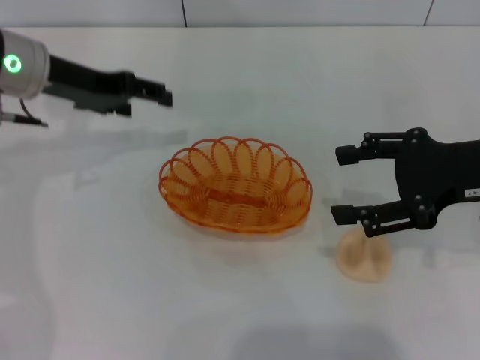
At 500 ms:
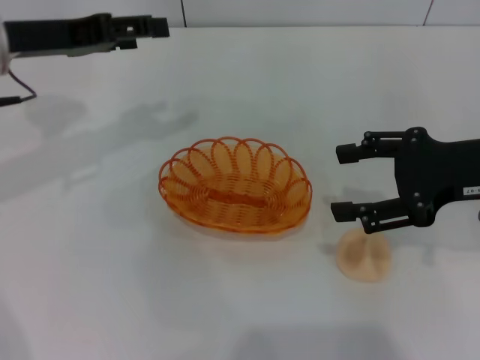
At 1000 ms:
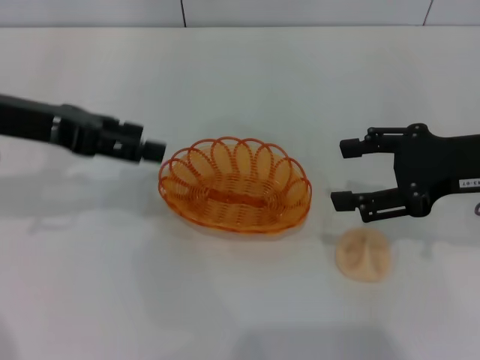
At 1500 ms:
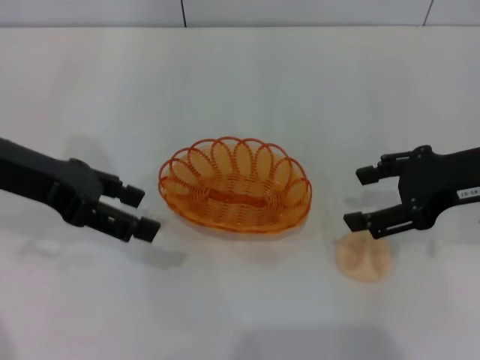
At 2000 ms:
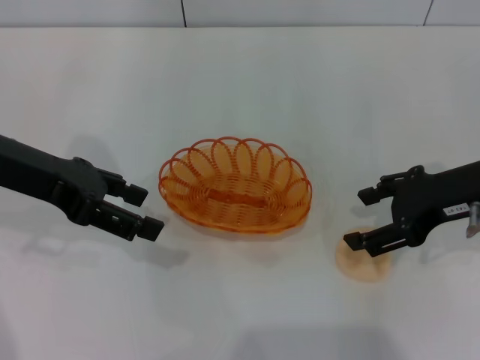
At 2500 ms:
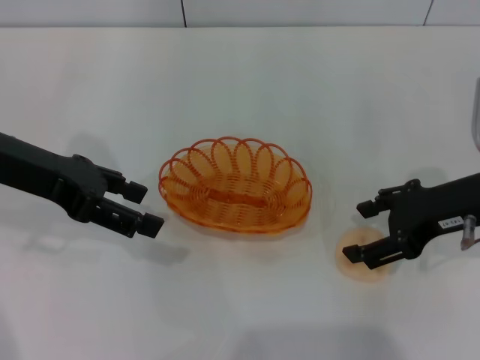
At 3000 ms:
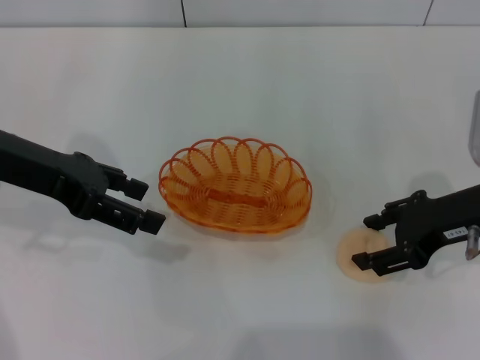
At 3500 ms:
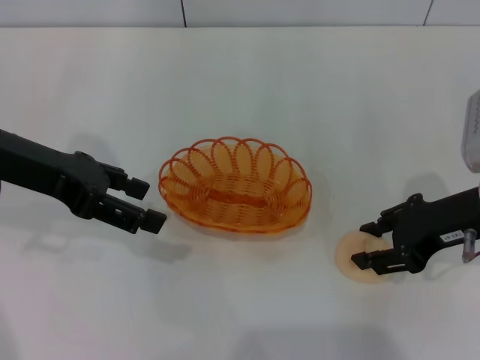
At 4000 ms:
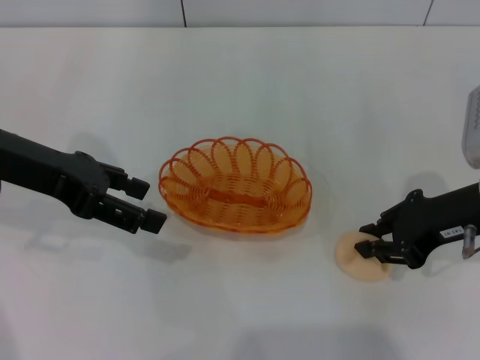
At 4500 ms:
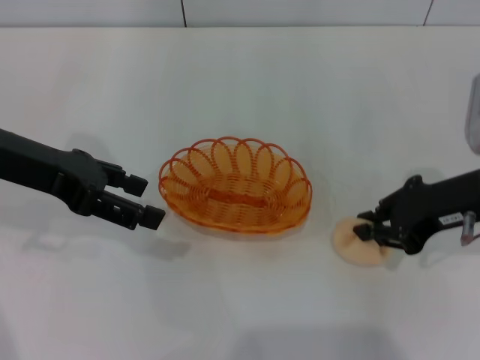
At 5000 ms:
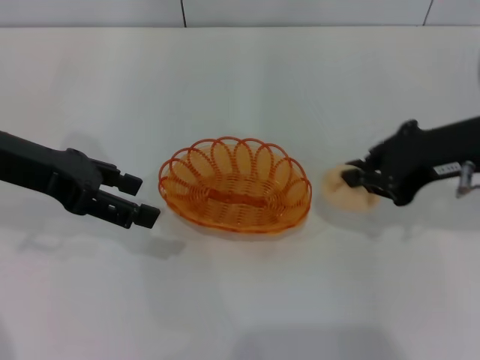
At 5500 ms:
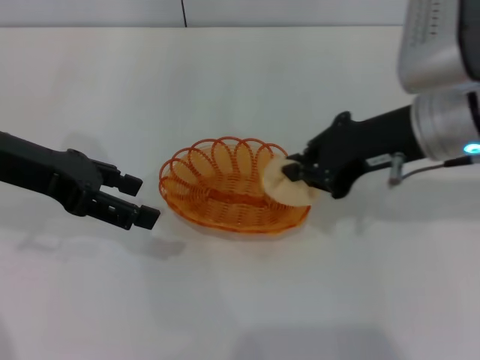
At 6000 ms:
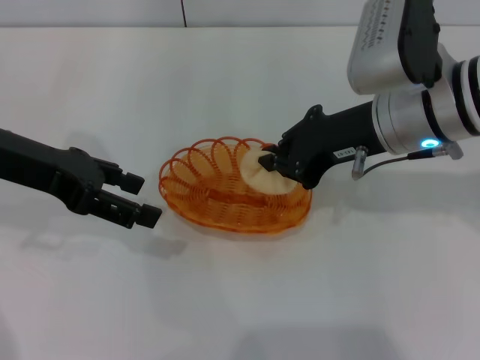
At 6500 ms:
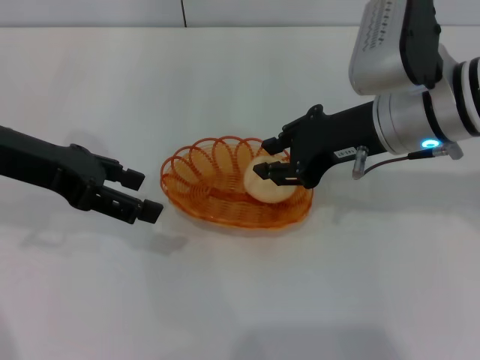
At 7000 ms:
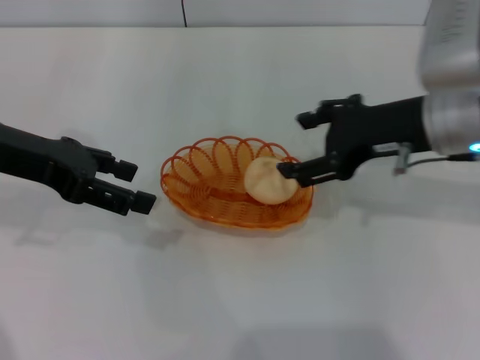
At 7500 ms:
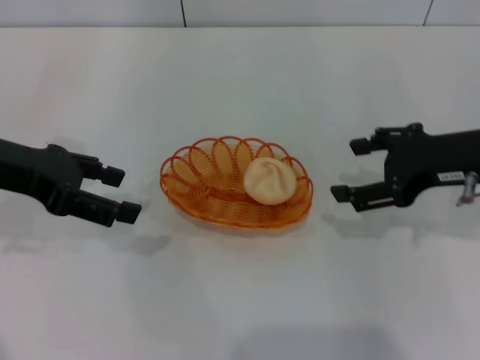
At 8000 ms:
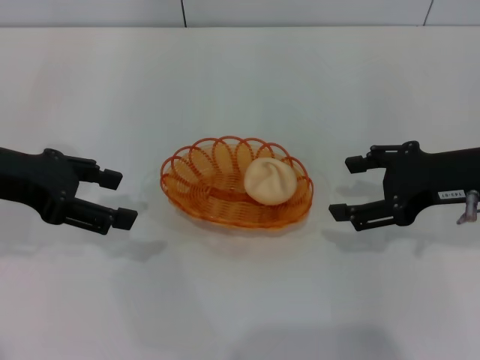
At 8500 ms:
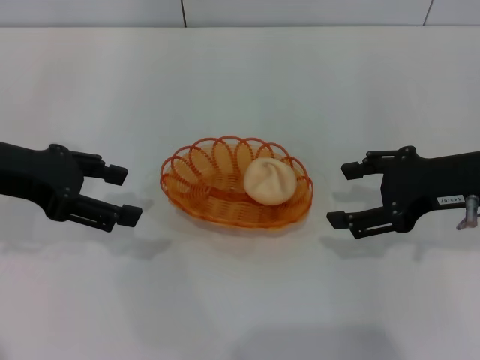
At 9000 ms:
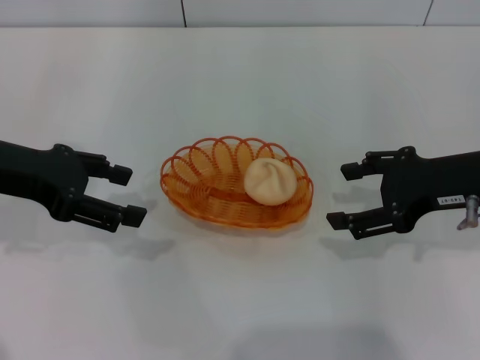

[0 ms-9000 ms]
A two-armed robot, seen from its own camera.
Step, 0 ms to 5000 ms: Pick up the egg yolk pastry with the right gripper.
Step, 5500 ms to 7500 ms: Place the egg yolk pastry into the basket with the right gripper.
0 ms to 2000 ms: The left gripper moves backward, some 10 cm.
2000 ms to 4500 ms: The right gripper closes up.
4500 ms to 7000 ms: The right gripper moves to the left, approximately 5 cm, and opens up.
7000 ms to 9000 ms: The right gripper shifts about 5 cm to the right.

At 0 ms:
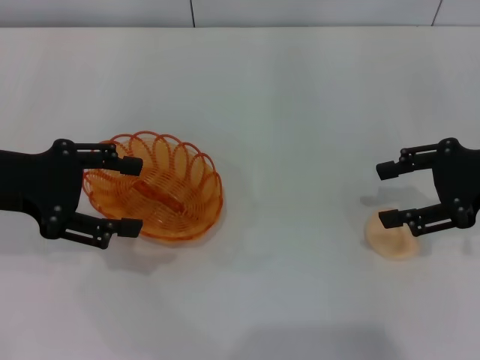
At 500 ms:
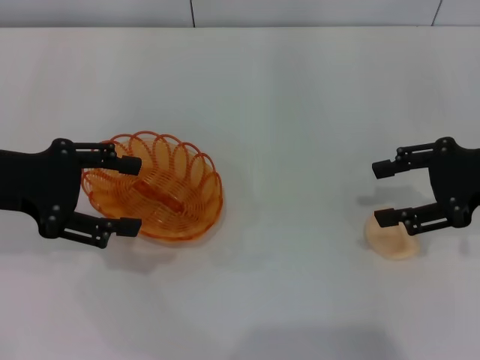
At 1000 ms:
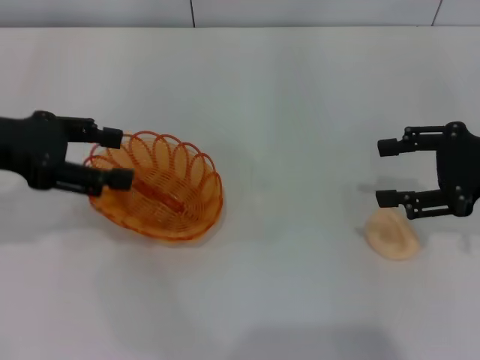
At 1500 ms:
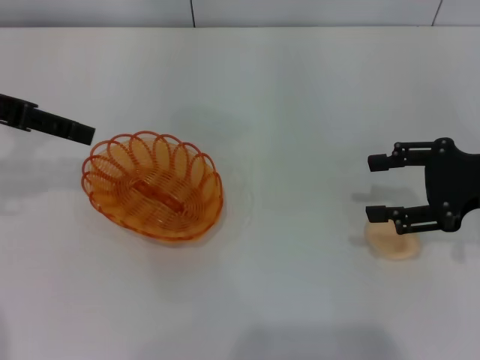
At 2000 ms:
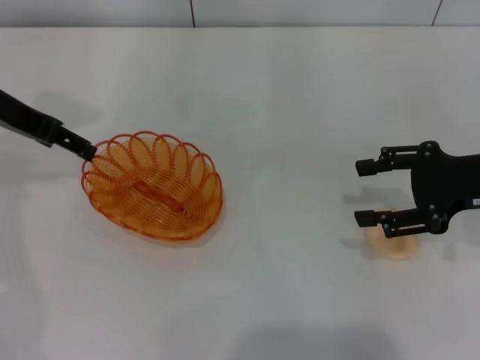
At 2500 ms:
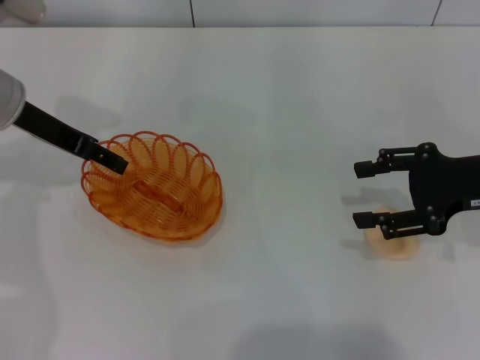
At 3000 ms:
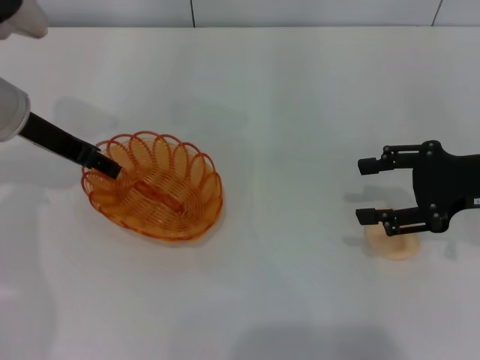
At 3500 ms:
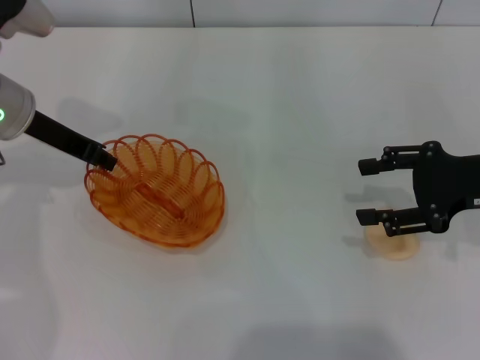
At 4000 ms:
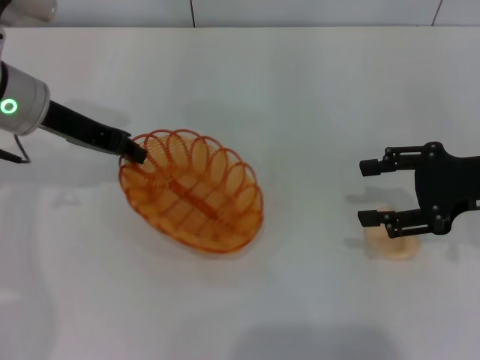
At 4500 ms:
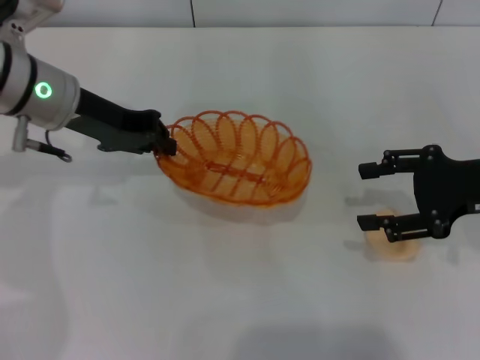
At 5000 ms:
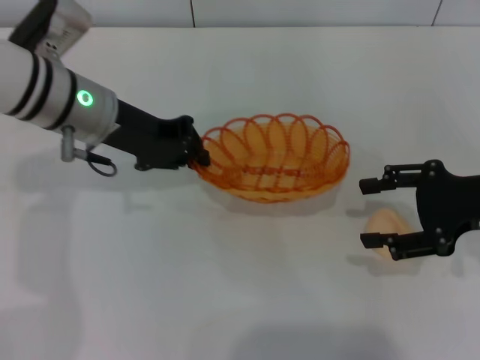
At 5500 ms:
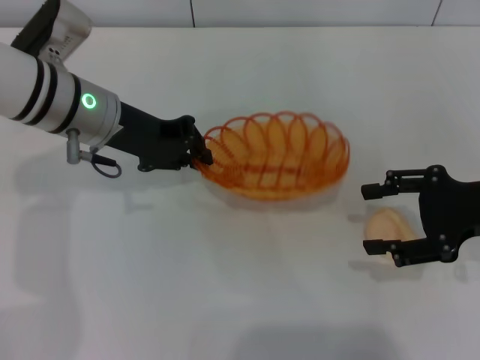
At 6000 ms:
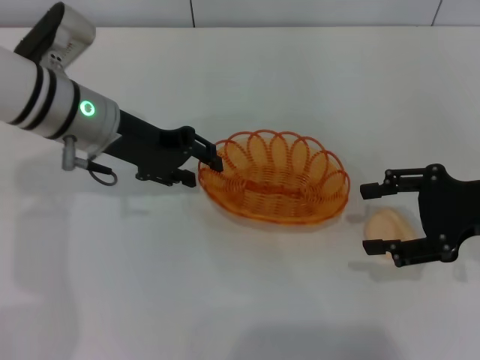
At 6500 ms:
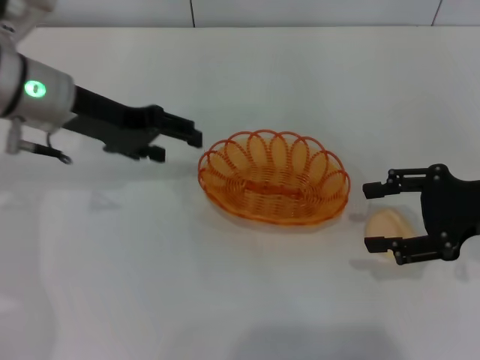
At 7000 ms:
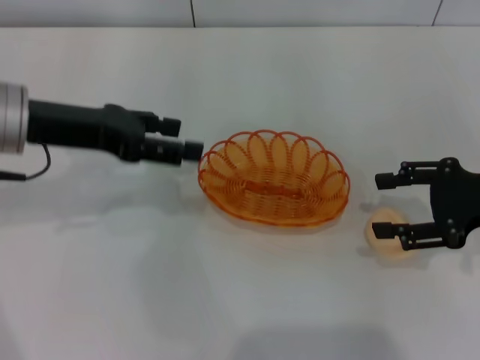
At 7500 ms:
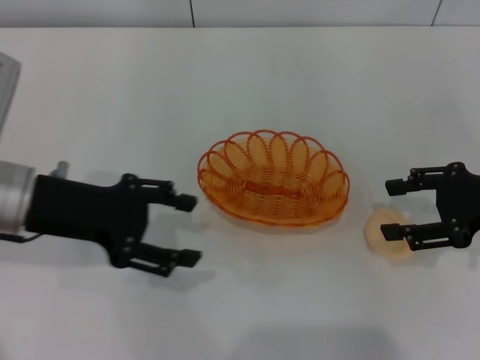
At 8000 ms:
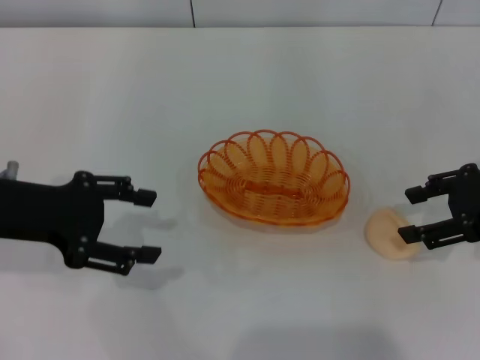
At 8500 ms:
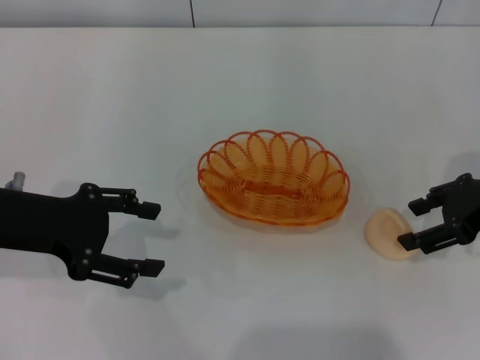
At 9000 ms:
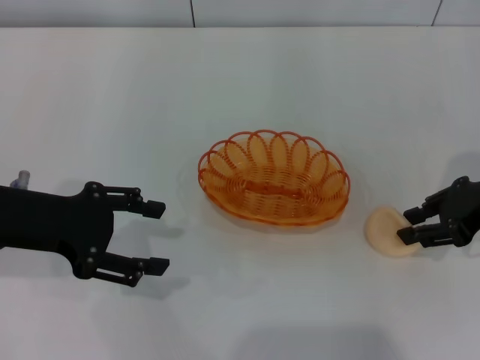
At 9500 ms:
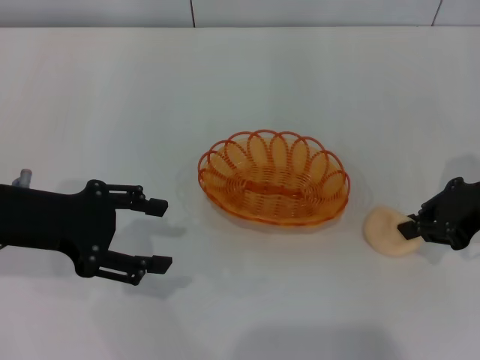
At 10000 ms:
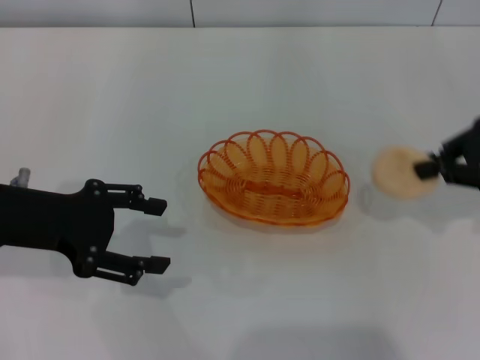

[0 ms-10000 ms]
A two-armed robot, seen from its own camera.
Step, 0 ms to 5000 ms: Pick up the basket with the left gripper.
Step, 5500 ms to 7000 ms: Place the basket in the center of view with the left gripper.
Step, 7500 ms to 9500 ms: Pick up the egg yolk pastry with the right gripper.
0 ms to 2000 ms: The left gripper goes approximately 10 cm forward.
2000 ms to 4000 ms: The left gripper changes place by roughly 5 cm, and closes its fingers.
4000 ms to 6000 ms: The left gripper heads to the right, covering roughly 5 cm, and opens its fingers.
6000 ms to 8000 ms: The left gripper travels backward and to the left by approximately 15 cm, and opens its fingers.
8000 ms to 10000 ms: The right gripper changes place by some 5 cm, and closes its fingers.

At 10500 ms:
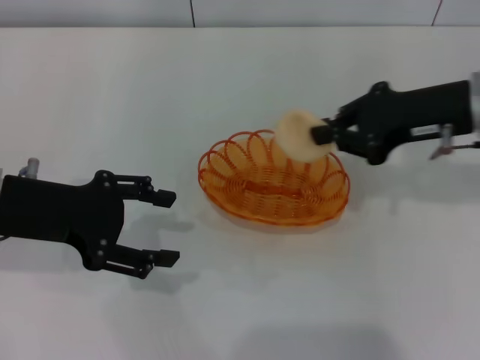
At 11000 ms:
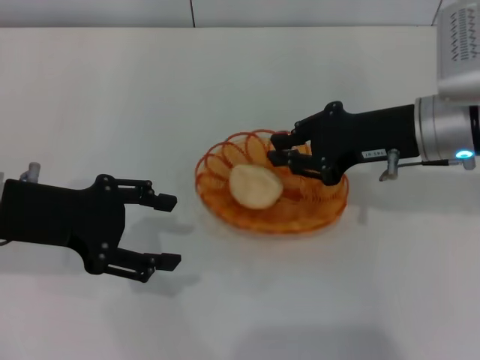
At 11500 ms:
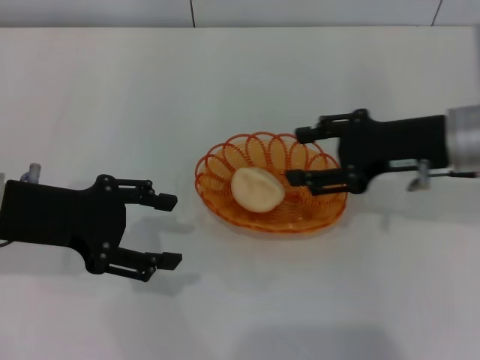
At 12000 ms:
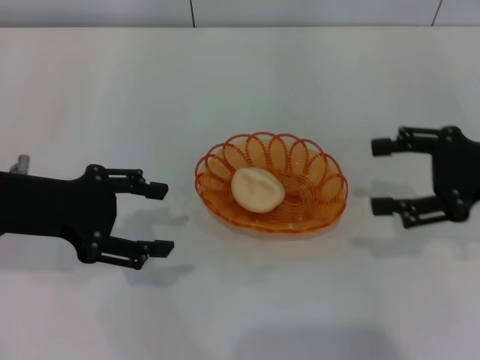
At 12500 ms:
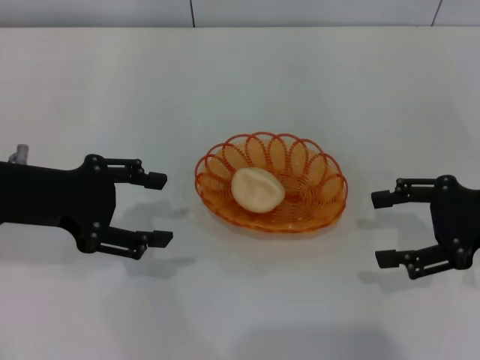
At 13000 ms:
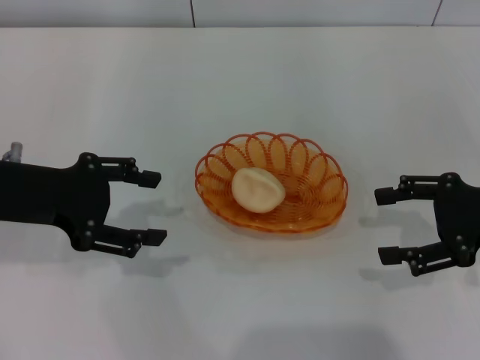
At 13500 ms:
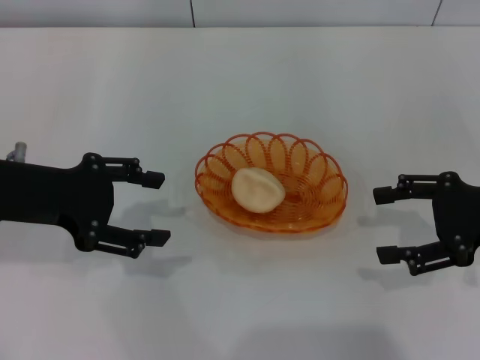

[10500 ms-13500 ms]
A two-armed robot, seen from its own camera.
Step, 10500 ms to 11500 ms: Place the egg yolk pastry into the basket with the right gripper.
10500 ms to 12000 ms: The right gripper heads to the right, covering about 5 cm, and opens its fingers.
12000 ms to 13500 ms: The grippers stay close to where they were, moving slightly.
